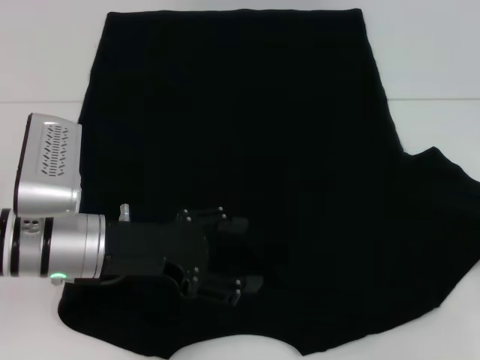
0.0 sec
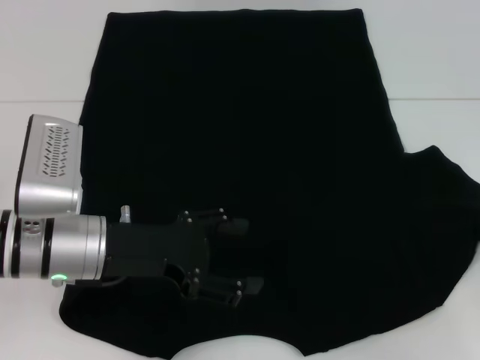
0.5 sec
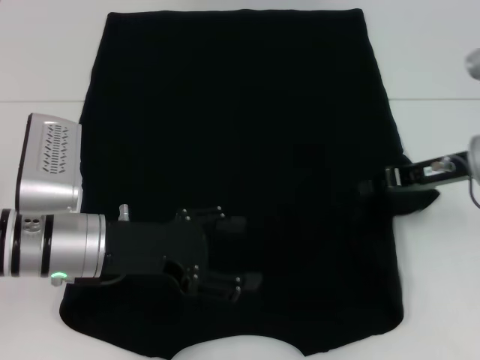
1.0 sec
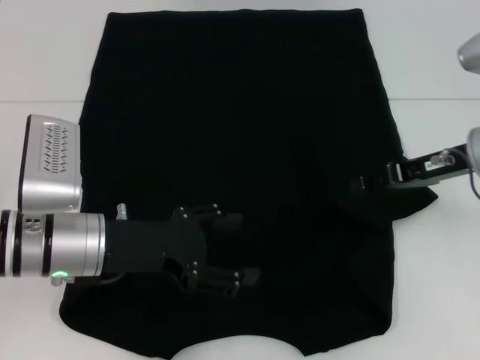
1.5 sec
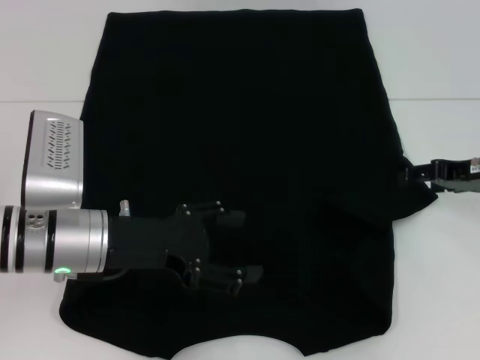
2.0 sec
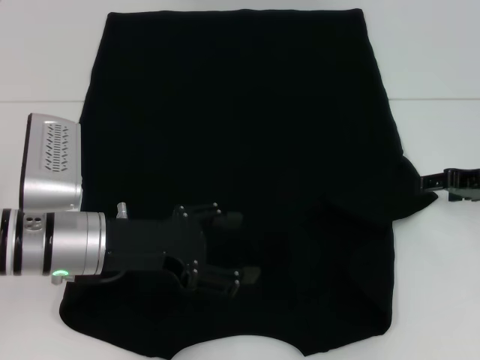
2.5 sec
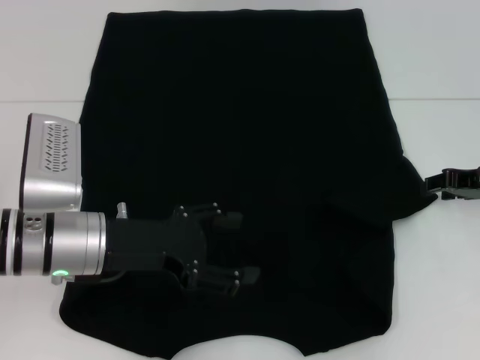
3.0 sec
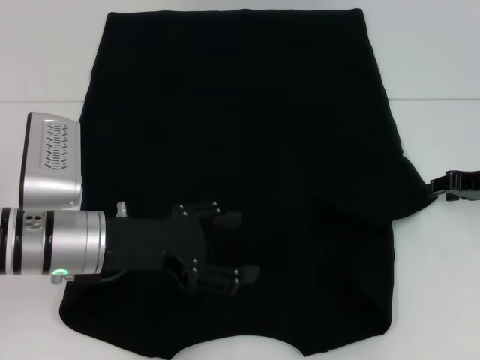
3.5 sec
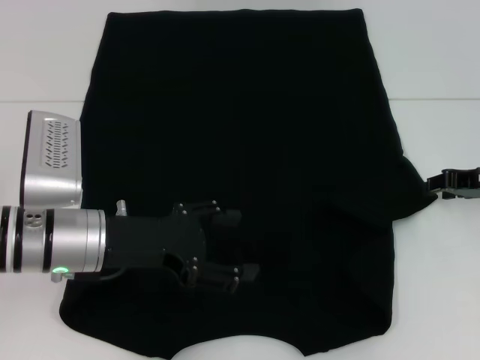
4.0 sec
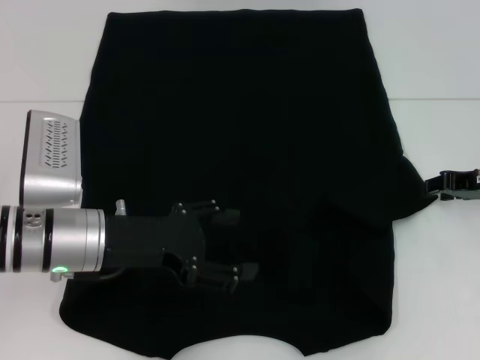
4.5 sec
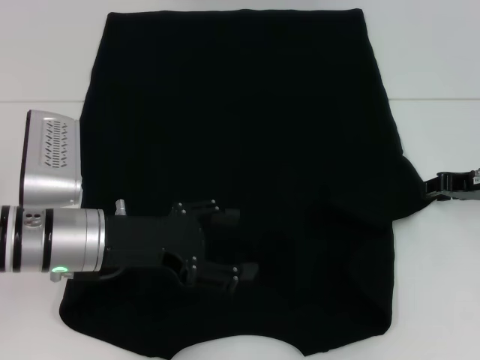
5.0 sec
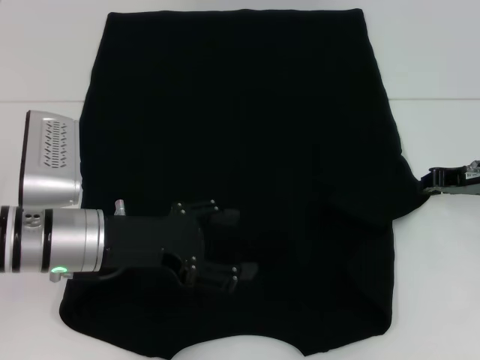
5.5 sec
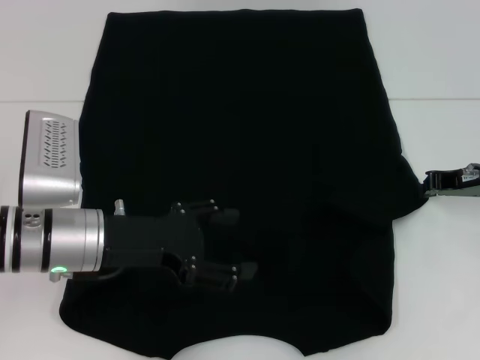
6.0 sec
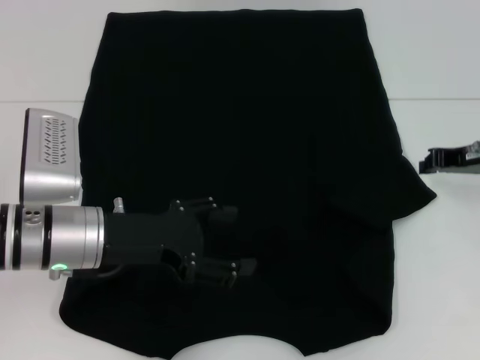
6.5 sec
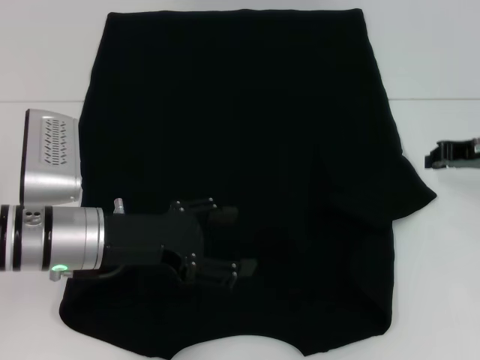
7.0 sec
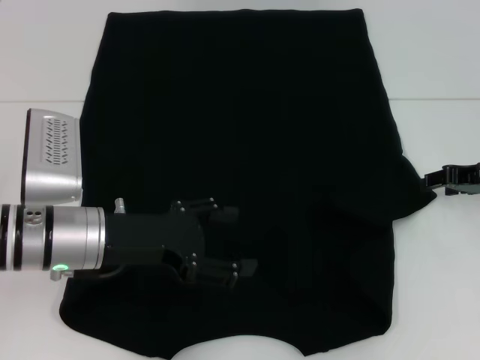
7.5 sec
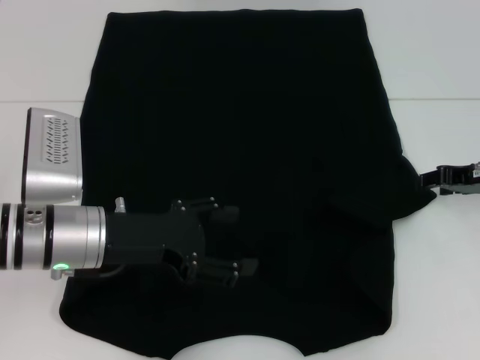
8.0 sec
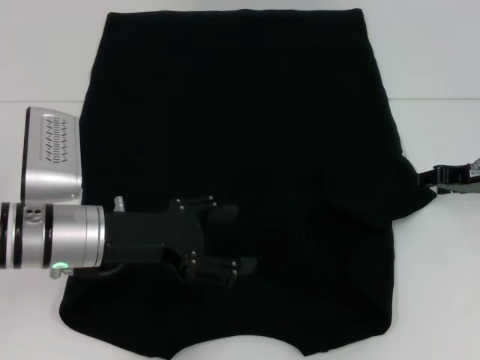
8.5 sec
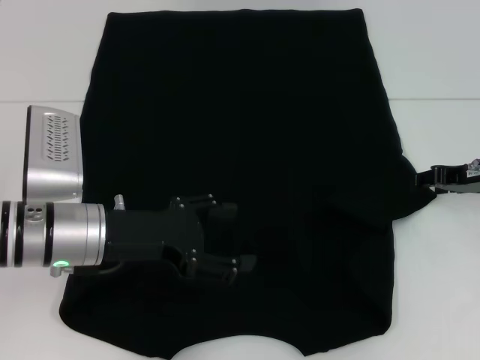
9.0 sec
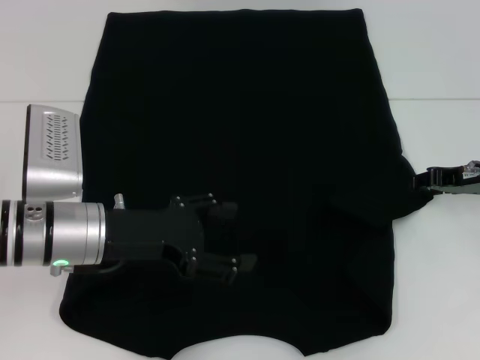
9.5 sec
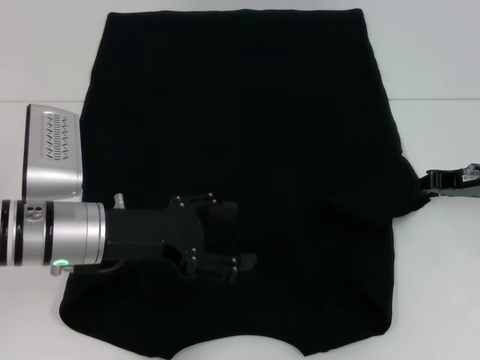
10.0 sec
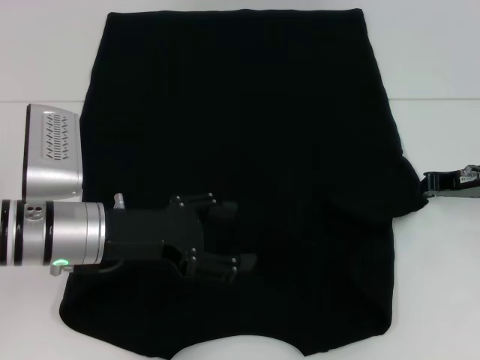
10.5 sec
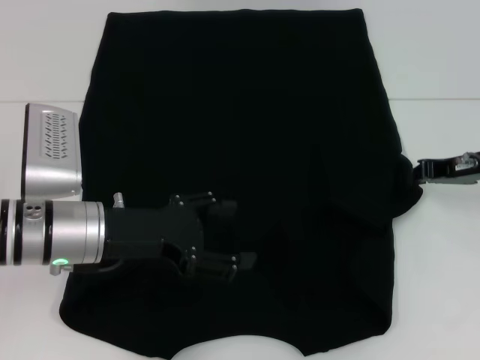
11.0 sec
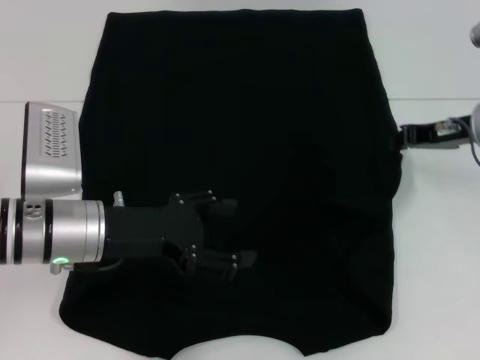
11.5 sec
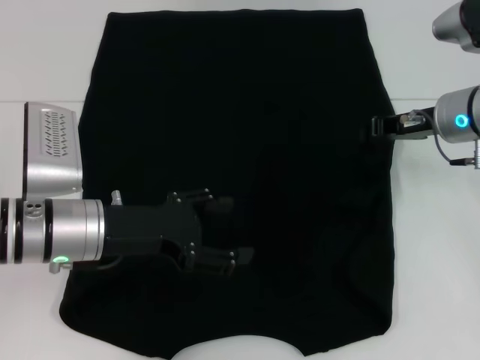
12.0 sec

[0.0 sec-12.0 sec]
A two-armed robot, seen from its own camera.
0.0 sec to 2.0 sec: The right gripper moves to the left and forward, roughly 10 cm, and opens up.
2.0 sec to 4.0 sec: There are only small adjustments of the grippers.
4.0 sec to 6.0 sec: The right gripper closes.
6.0 sec to 8.0 sec: The right gripper opens up.
8.0 sec to 10.0 sec: Both grippers stay put.
10.0 sec to 12.0 sec: The right gripper shifts roughly 5 cm to the left, and closes up.

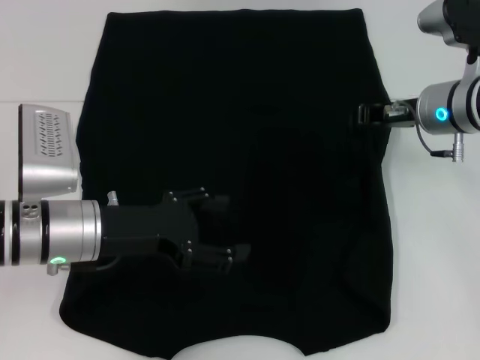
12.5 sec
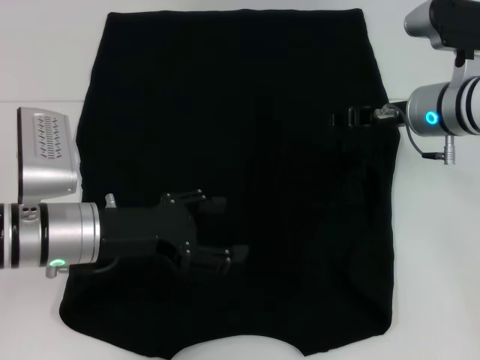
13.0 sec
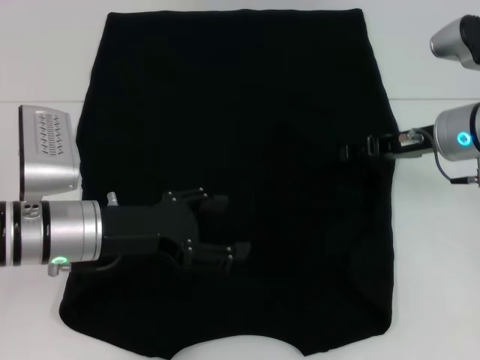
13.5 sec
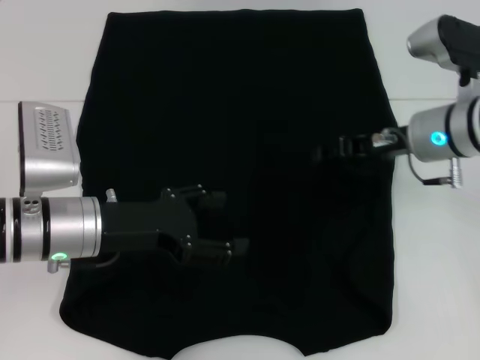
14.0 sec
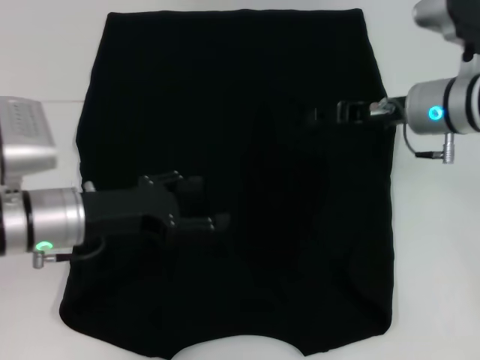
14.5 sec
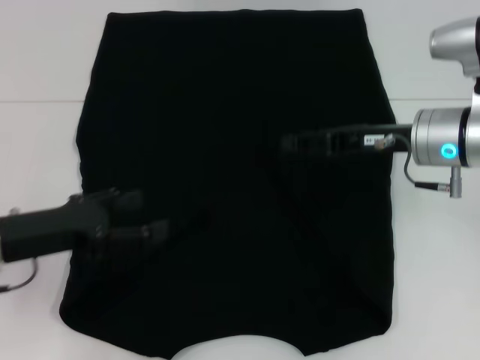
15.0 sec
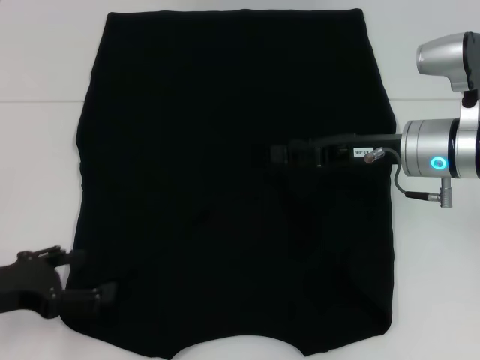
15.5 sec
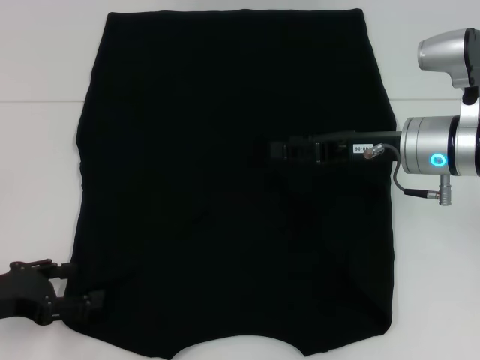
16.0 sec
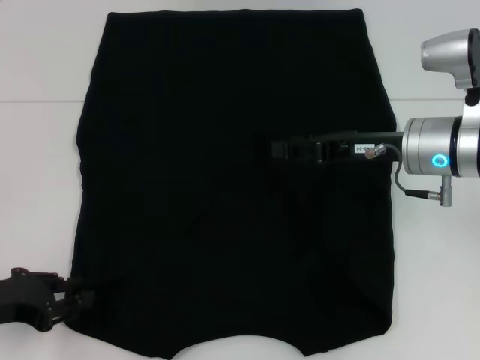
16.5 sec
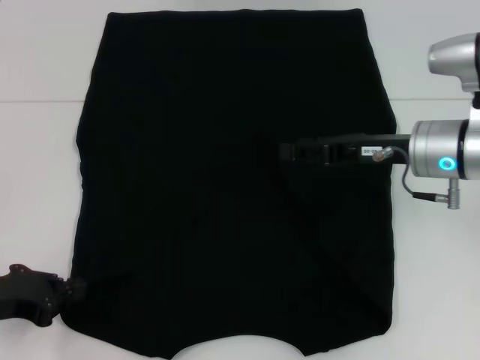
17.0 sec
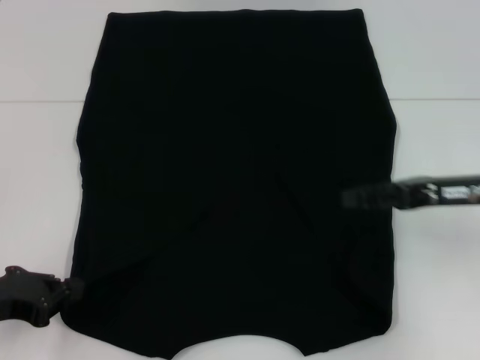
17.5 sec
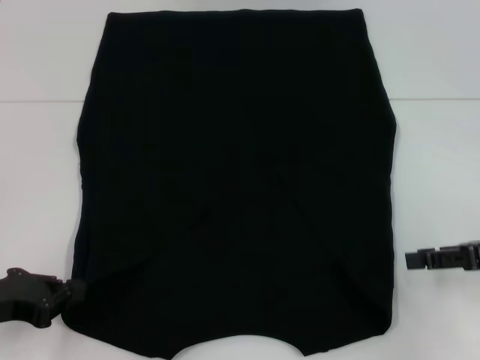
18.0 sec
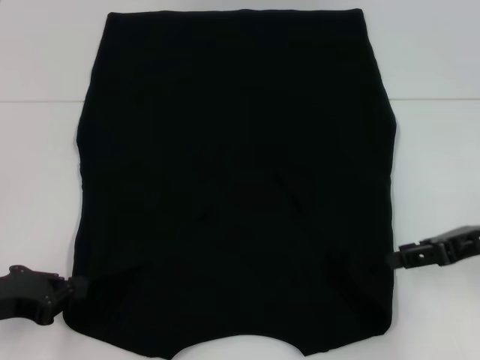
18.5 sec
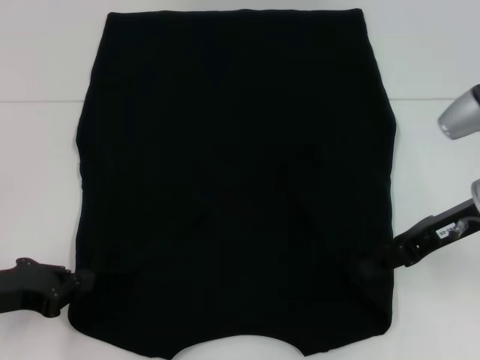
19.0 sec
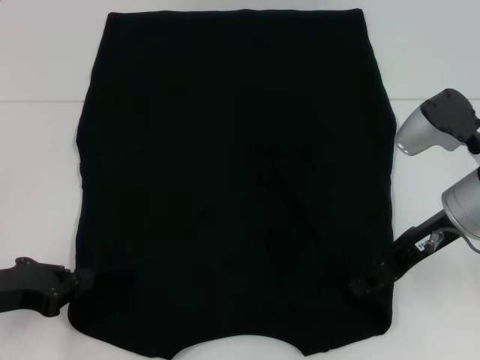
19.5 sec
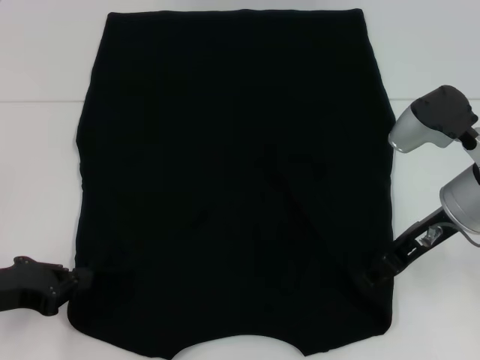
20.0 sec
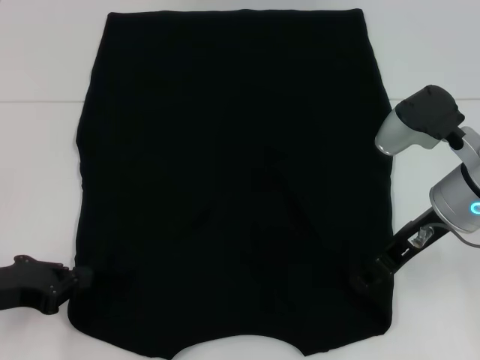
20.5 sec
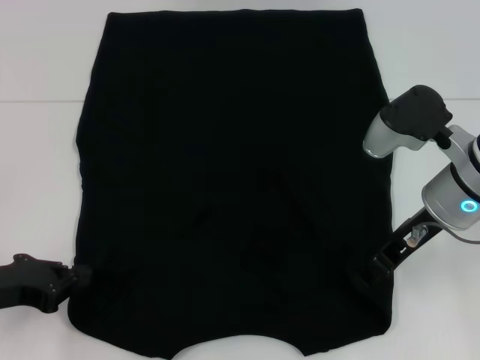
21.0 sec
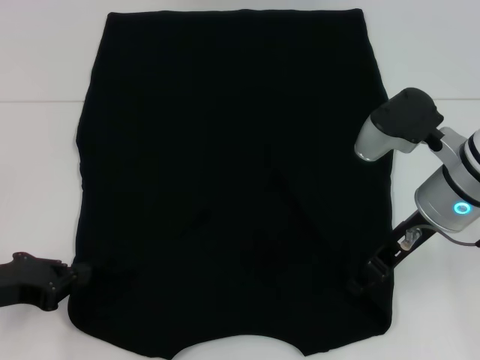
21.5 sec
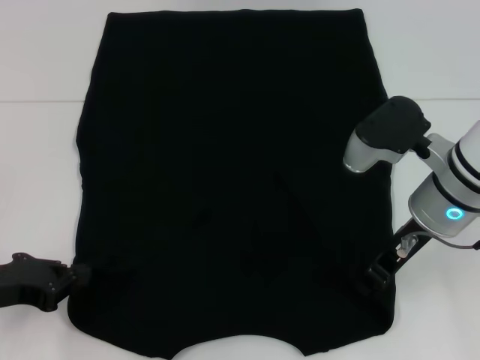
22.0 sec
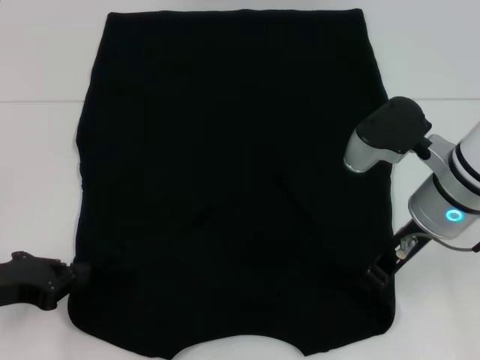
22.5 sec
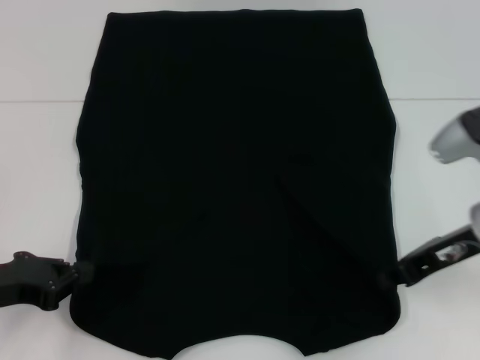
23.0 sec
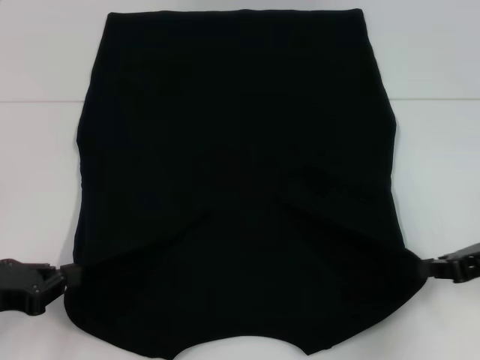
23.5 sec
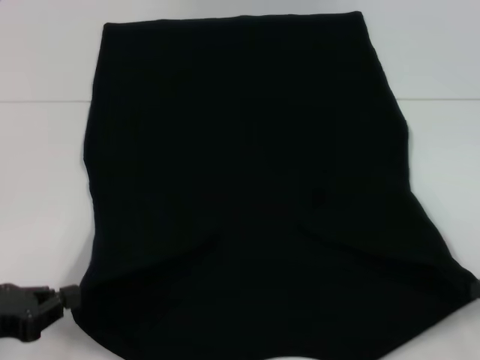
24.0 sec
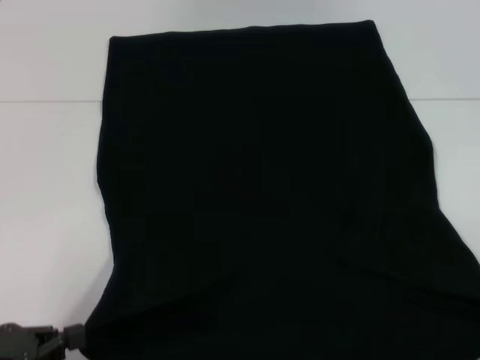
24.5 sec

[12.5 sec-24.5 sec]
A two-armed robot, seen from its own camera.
Step, 12.5 sec to 17.0 sec: Grab the bottom left corner with your left hand.
Step, 17.5 sec to 20.5 sec: Grab the bottom right corner with your right hand.
12.5 sec to 14.5 sec: The right gripper opens.
14.5 sec to 16.5 sec: The left gripper goes about 15 cm to the left and backward, and closes its fingers.
16.5 sec to 18.5 sec: The left gripper closes; the right gripper goes some 10 cm to the right and backward.
18.5 sec to 20.5 sec: The right gripper goes approximately 10 cm to the left.
20.5 sec to 22.5 sec: The right gripper closes up.
22.5 sec to 24.5 sec: The right gripper shifts roughly 30 cm to the right and backward; the left gripper heads backward, covering roughly 10 cm.

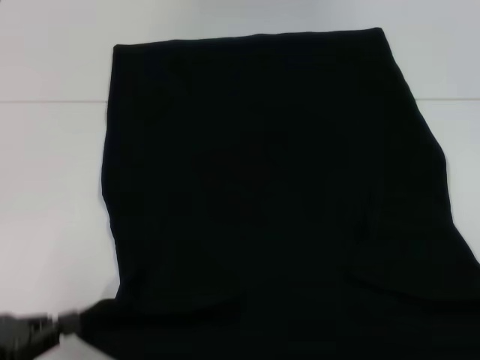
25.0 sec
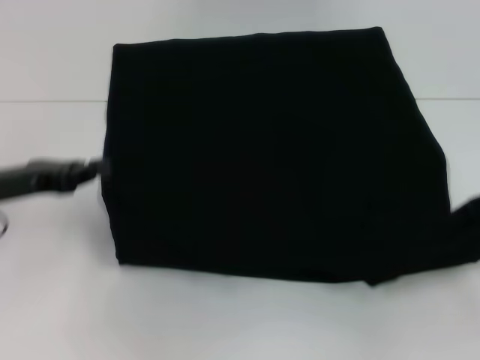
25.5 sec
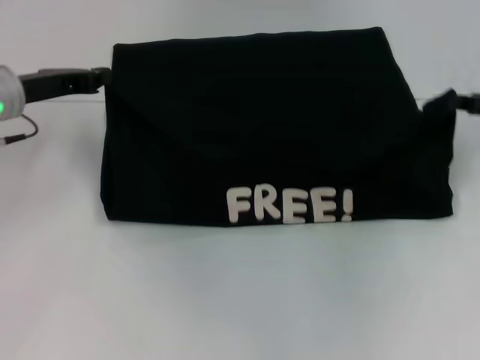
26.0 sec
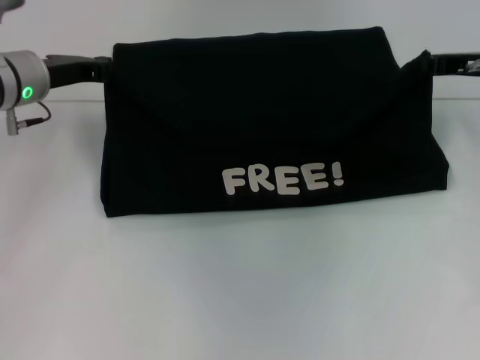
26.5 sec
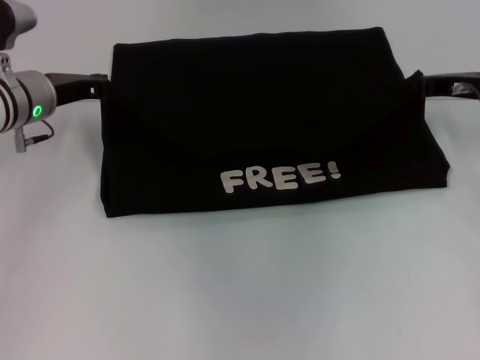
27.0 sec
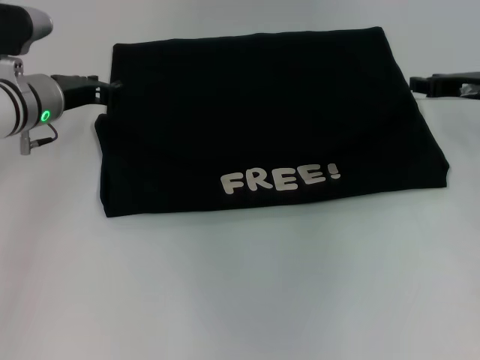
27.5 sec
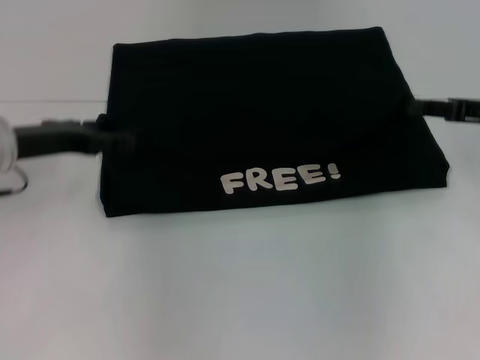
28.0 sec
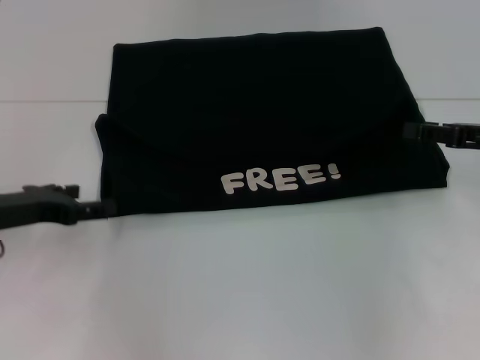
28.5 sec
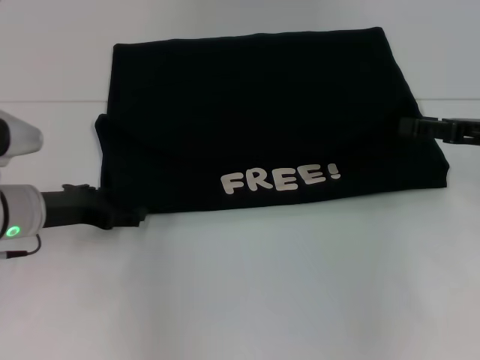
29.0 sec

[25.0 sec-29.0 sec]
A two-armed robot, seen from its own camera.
Step, 25.0 sec to 27.5 sec: Fold the clothes with your left hand.
Step, 25.0 sec to 27.5 sec: Fold the clothes with your right hand.
25.0 sec to 27.0 sec: The right gripper goes about 30 cm forward and to the left. The left gripper moves forward, some 30 cm.
27.0 sec to 29.0 sec: The two grippers go roughly 10 cm backward. The right gripper opens up. Meanwhile the left gripper opens its fingers.
